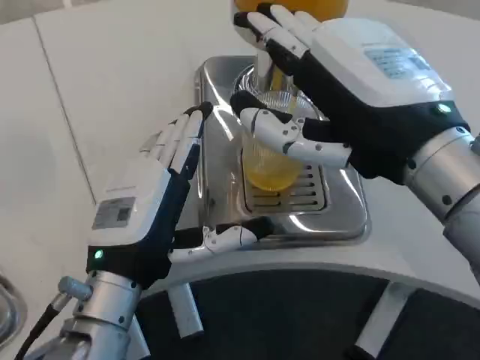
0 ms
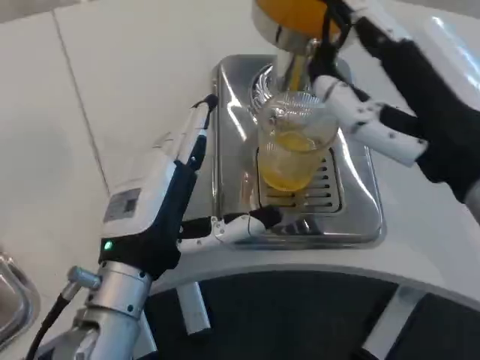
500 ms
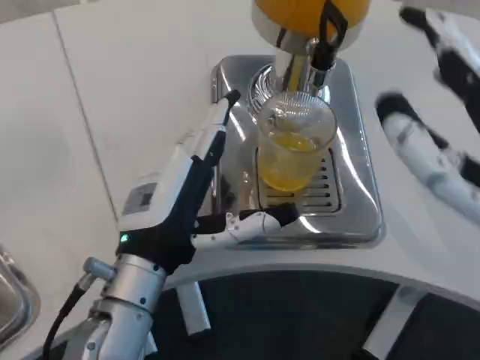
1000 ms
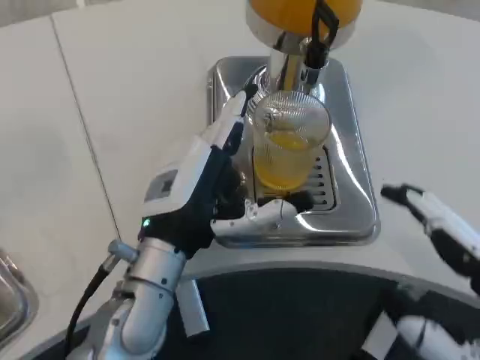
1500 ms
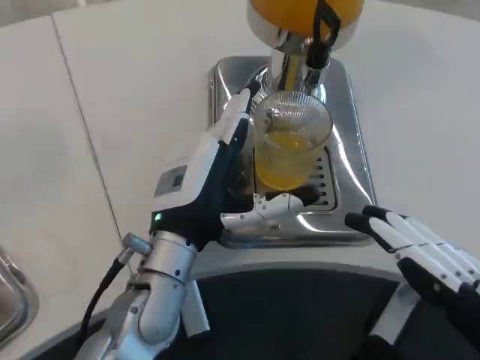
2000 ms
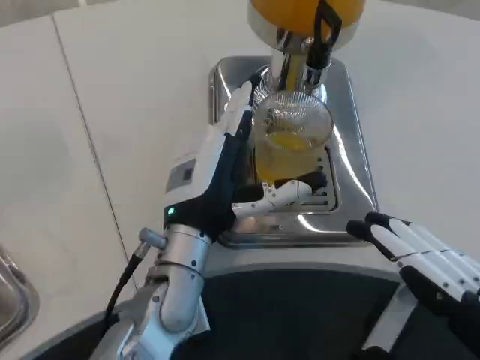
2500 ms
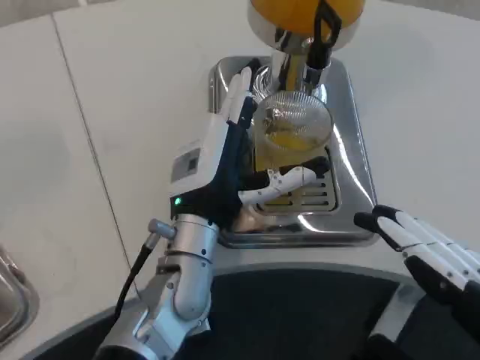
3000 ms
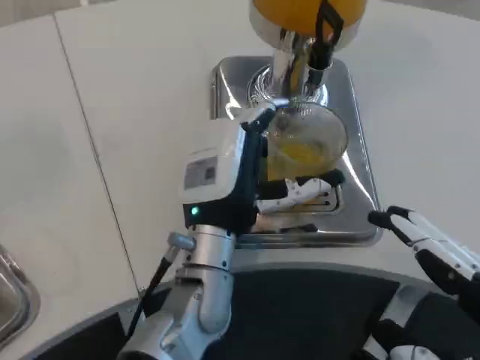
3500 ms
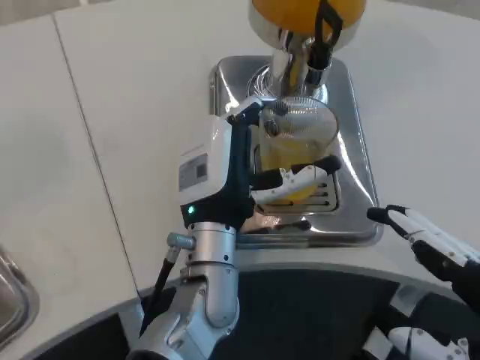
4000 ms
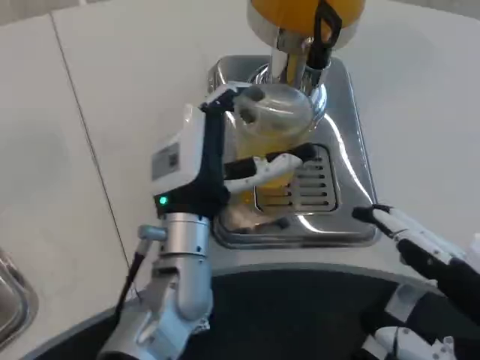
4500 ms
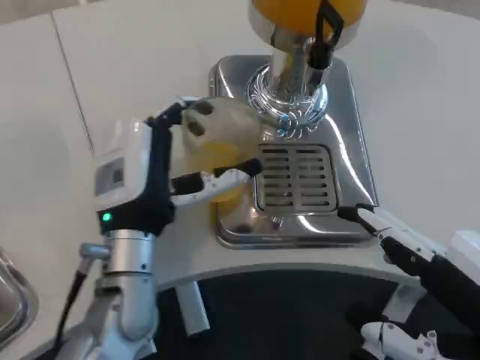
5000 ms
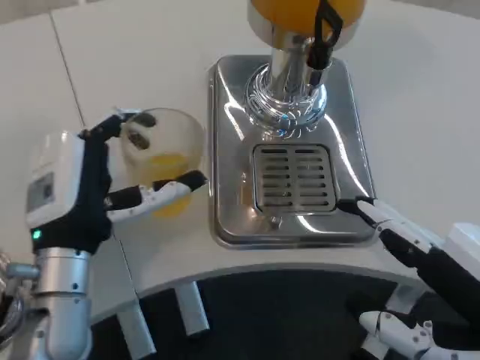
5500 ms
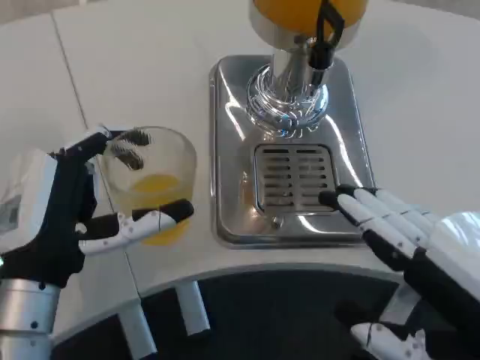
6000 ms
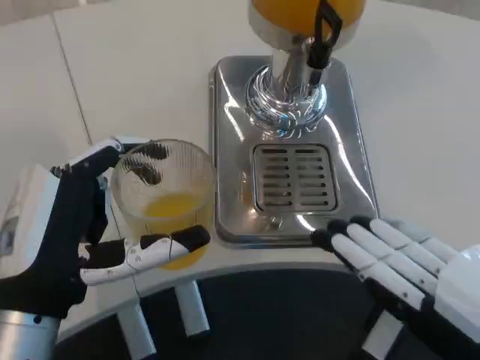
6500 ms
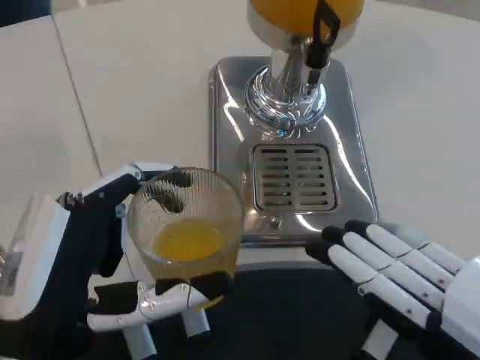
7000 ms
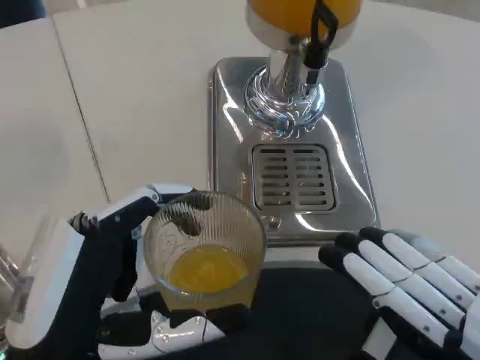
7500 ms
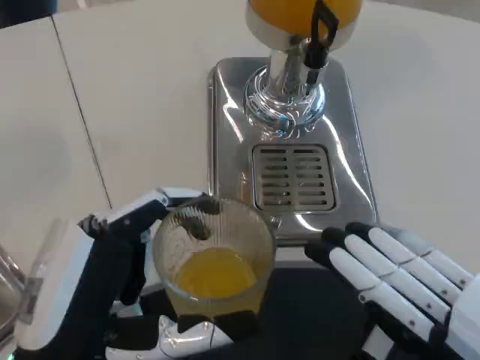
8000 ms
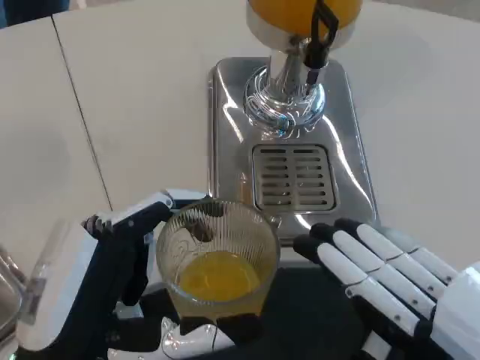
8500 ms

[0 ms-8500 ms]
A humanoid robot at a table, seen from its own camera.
Task of the whole recording: Grasp the cup under the faucet to collect the drink, then remove the cup.
0 ms to 2000 ms: The left hand goes about 5 cm forward. Meanwhile the right hand is displaced backward, downward and to the right by some 20 cm.
2000 ms to 4000 ms: The left hand shifts about 5 cm to the right.
4000 ms to 6500 ms: The left hand heads to the left and backward, covering roughly 20 cm.
6500 ms to 8500 ms: The left hand heads backward, covering approximately 5 cm.

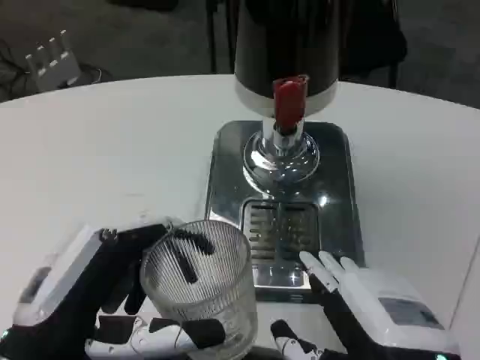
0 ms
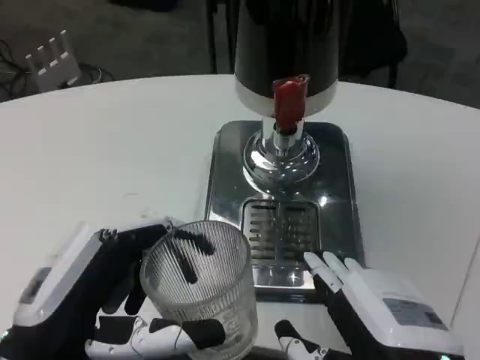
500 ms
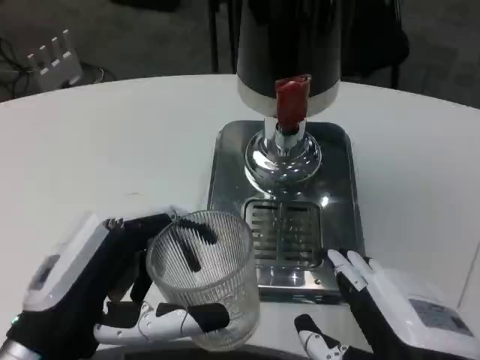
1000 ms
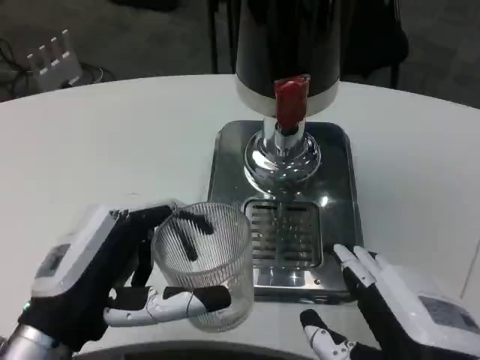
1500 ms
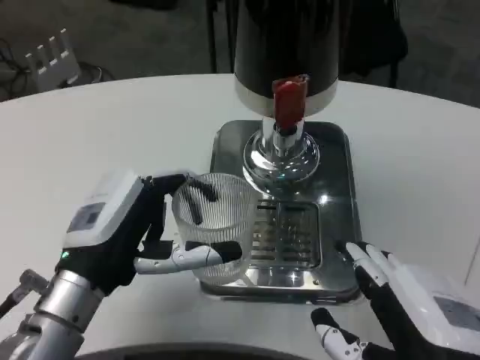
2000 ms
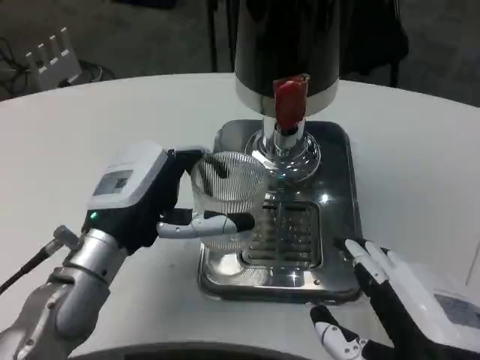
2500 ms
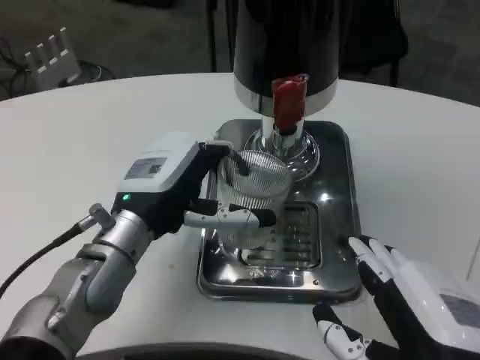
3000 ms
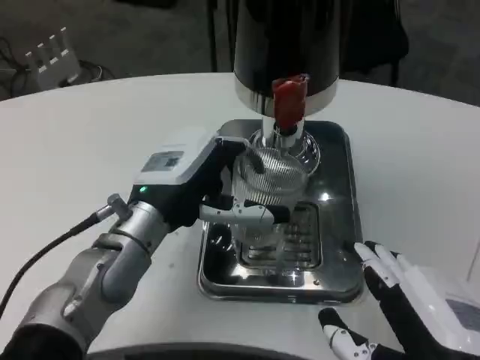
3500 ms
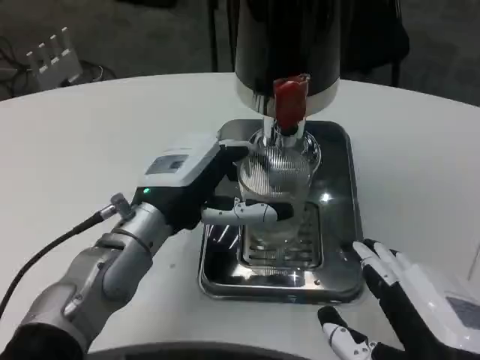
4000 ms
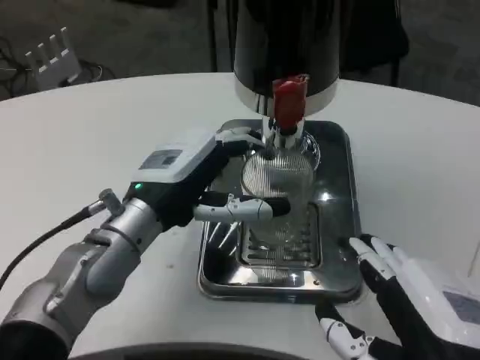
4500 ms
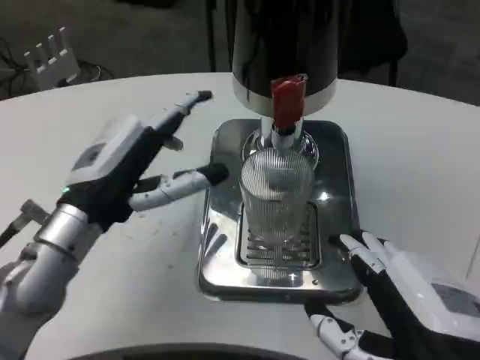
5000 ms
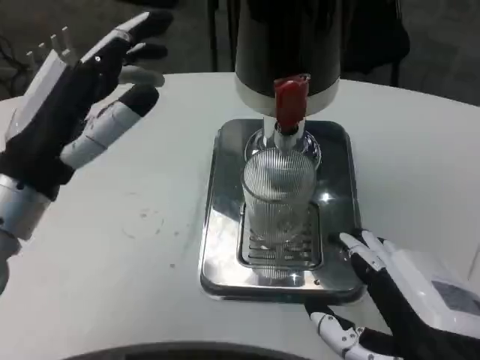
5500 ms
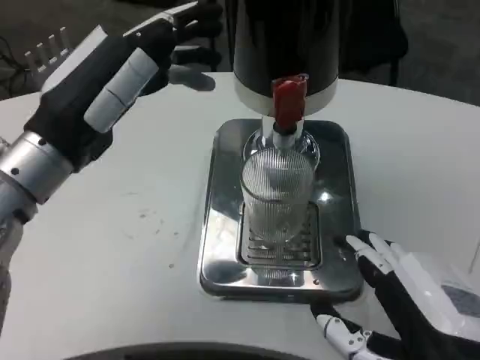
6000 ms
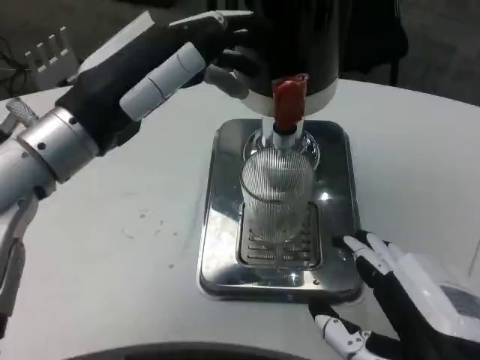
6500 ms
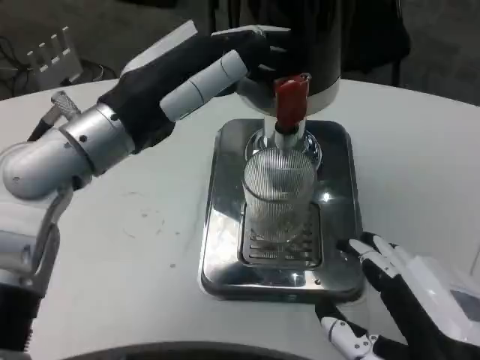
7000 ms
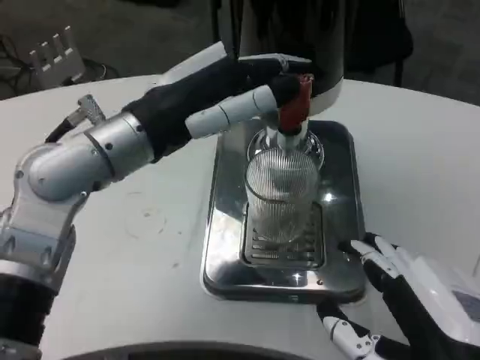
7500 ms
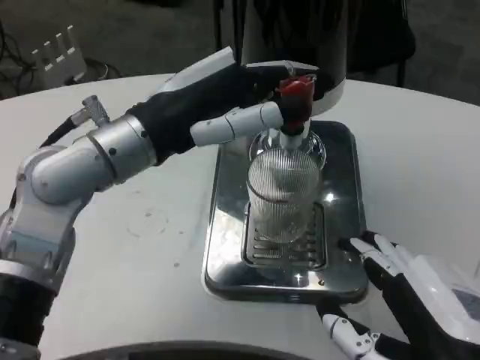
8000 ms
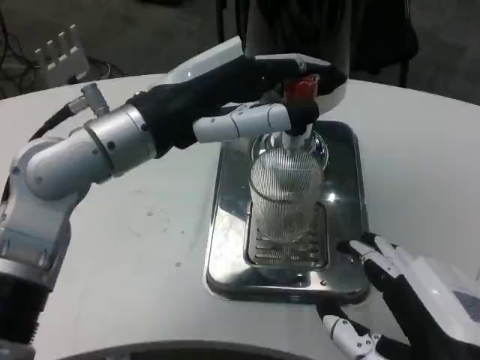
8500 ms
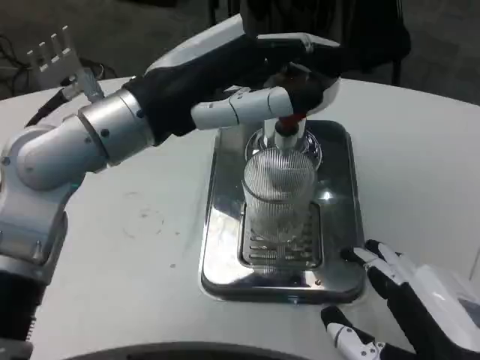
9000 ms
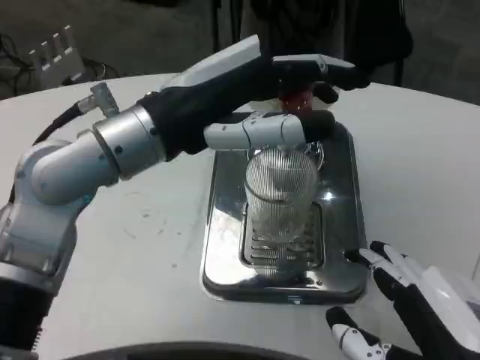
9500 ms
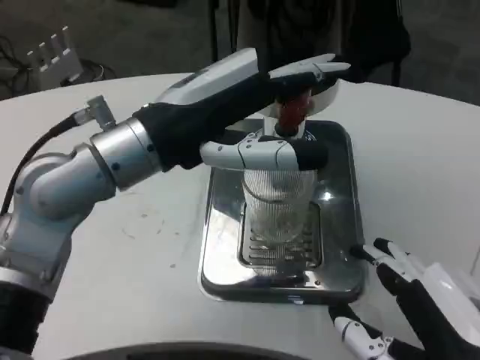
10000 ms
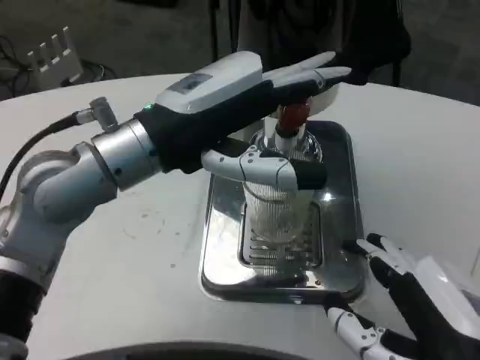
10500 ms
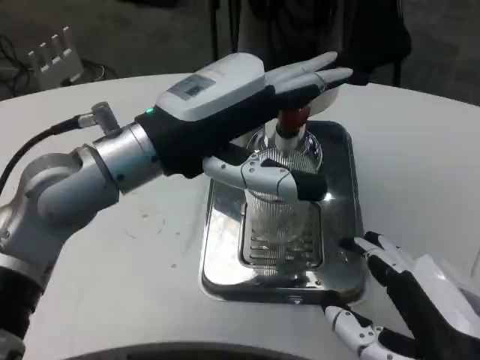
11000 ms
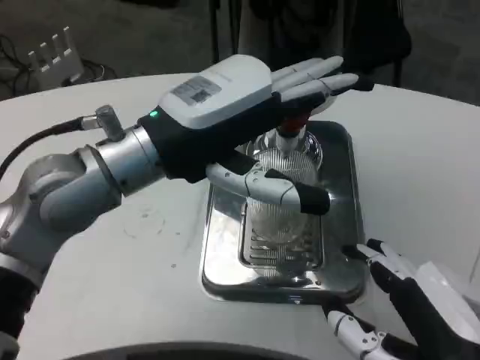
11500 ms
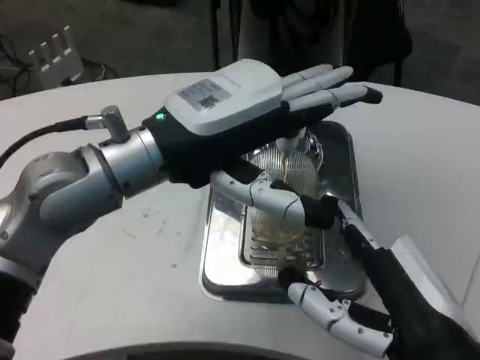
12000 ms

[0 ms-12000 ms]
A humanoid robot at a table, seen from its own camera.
Task of the whole recording: Grasp the cup under the faucet to collect the drink, then remove the cup.
0 ms to 2000 ms: The left hand moves forward, about 10 cm.
2000 ms to 4000 ms: The left hand shifts approximately 5 cm forward.
4000 ms to 6000 ms: The left hand moves upward and to the left, about 10 cm.
6000 ms to 8000 ms: The left hand moves to the right, about 5 cm.

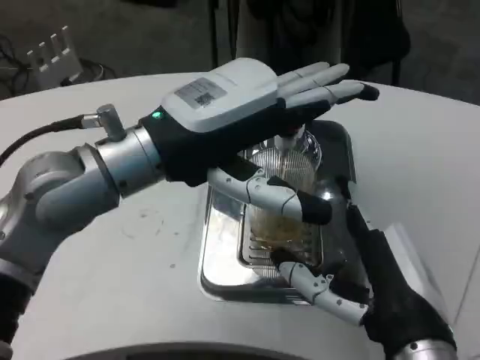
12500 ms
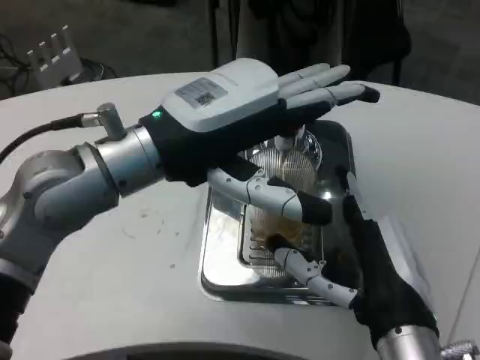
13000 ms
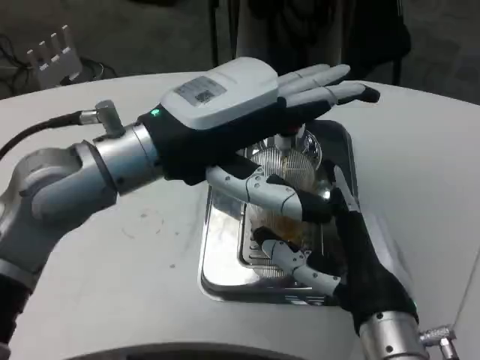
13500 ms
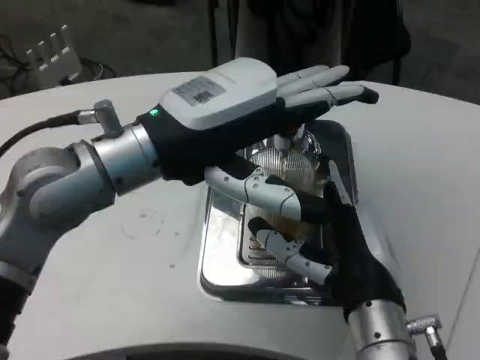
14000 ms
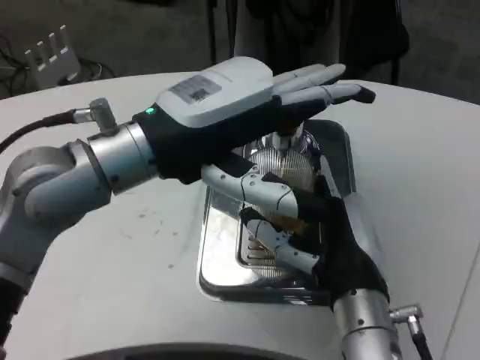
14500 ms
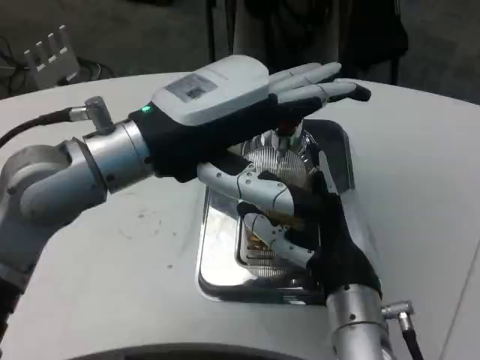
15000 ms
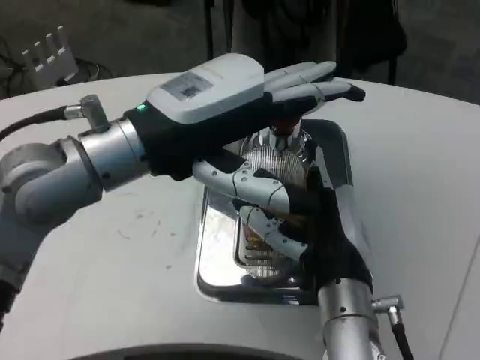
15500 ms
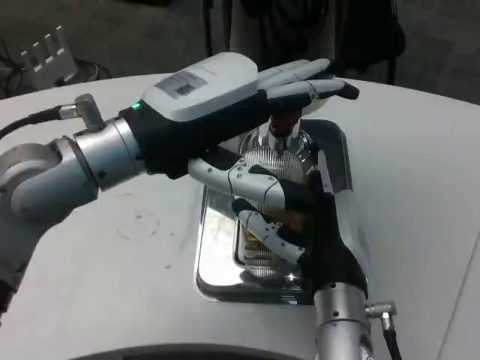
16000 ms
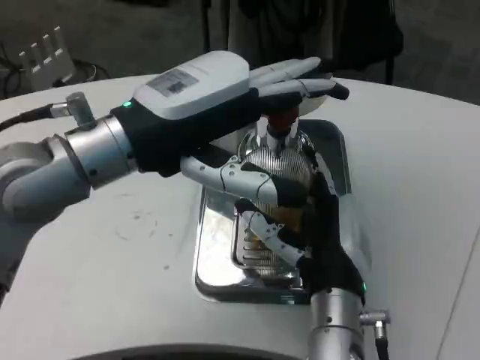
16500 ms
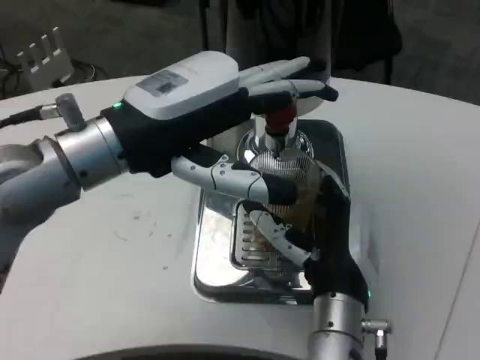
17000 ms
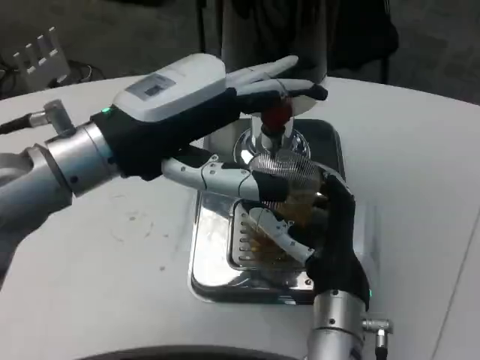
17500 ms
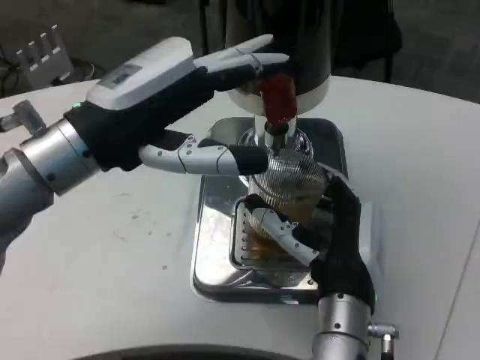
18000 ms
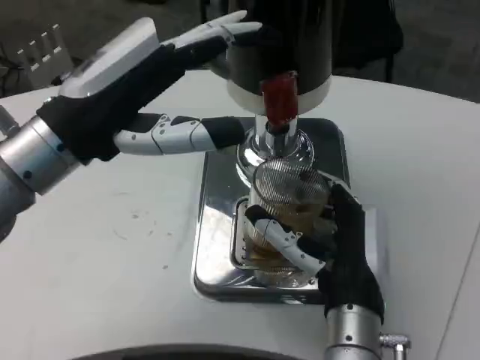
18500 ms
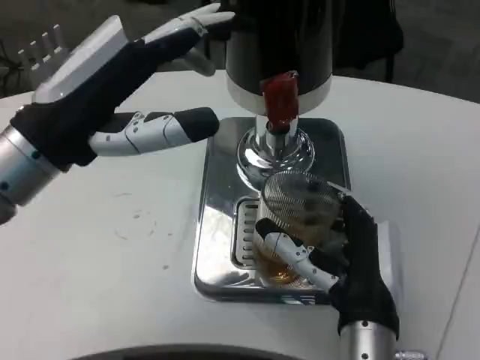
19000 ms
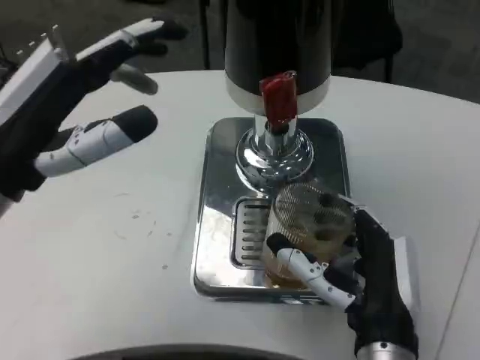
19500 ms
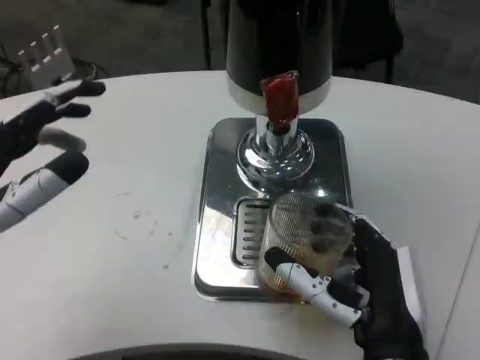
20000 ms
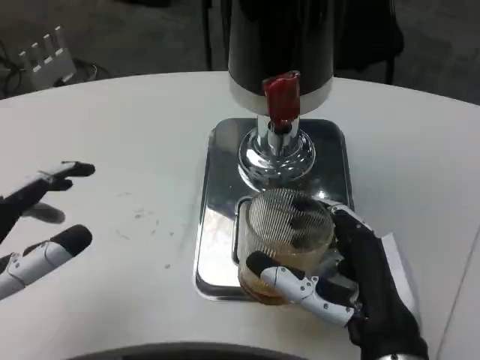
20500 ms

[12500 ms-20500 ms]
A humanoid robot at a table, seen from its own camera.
Task of the whole recording: Grasp the cup under the faucet to collect the drink, then remove the cup.
12500 ms to 14500 ms: The right hand moves forward, approximately 5 cm.
18500 ms to 20500 ms: The right hand travels backward by approximately 5 cm, while the left hand moves downward, backward and to the left, about 15 cm.
